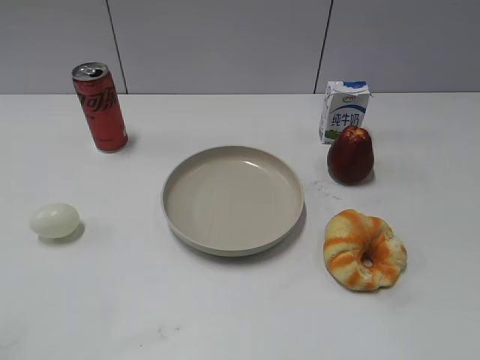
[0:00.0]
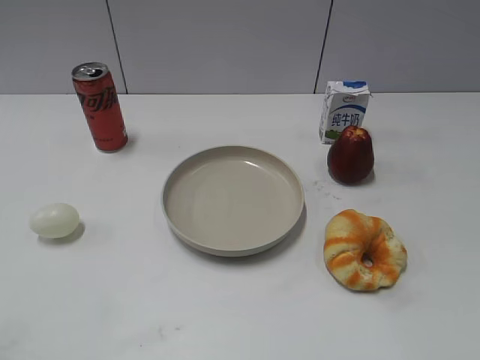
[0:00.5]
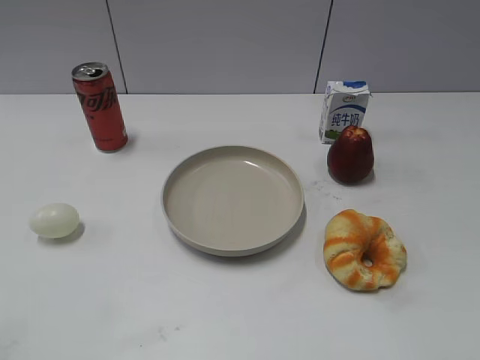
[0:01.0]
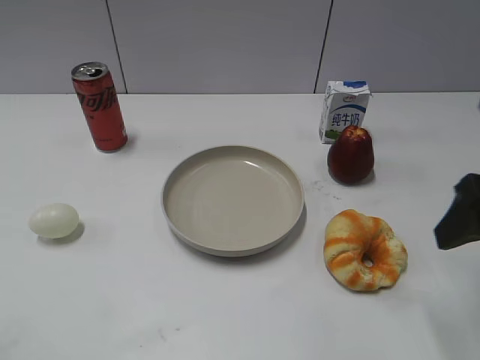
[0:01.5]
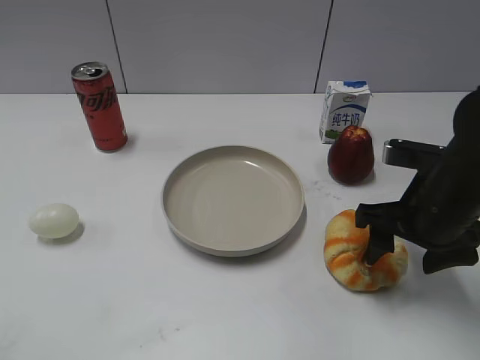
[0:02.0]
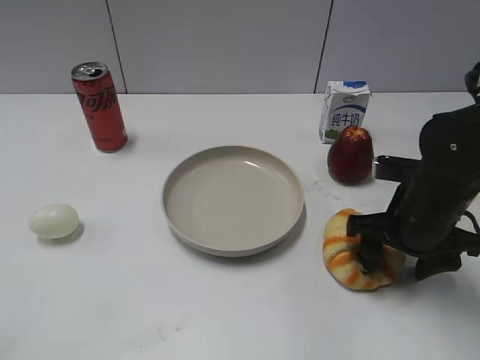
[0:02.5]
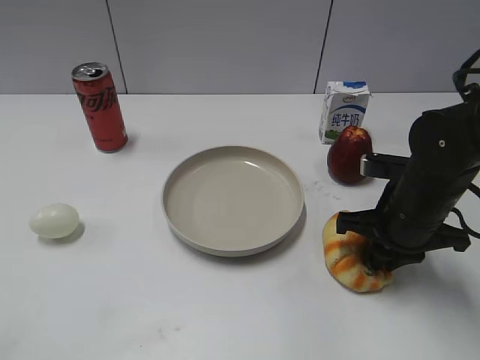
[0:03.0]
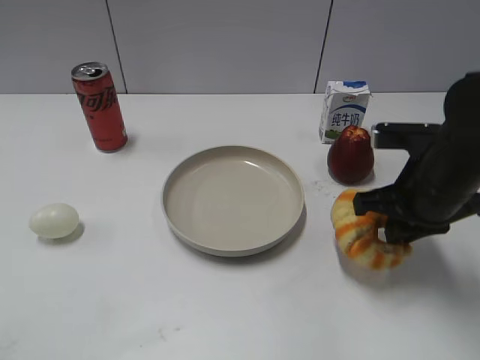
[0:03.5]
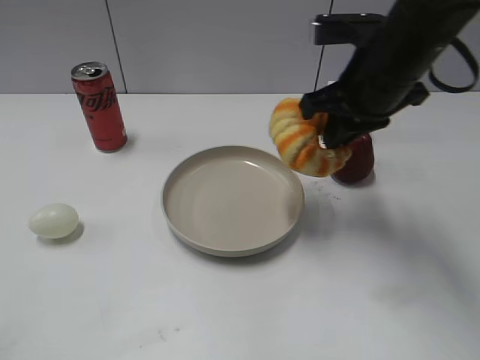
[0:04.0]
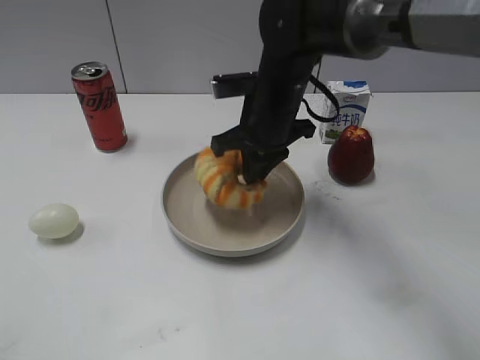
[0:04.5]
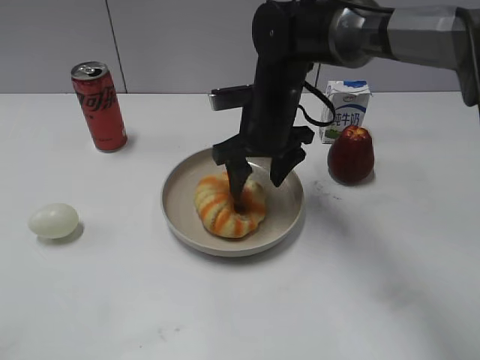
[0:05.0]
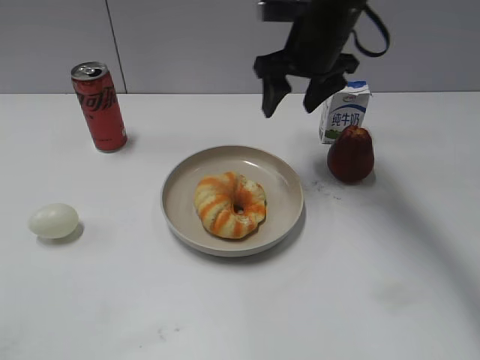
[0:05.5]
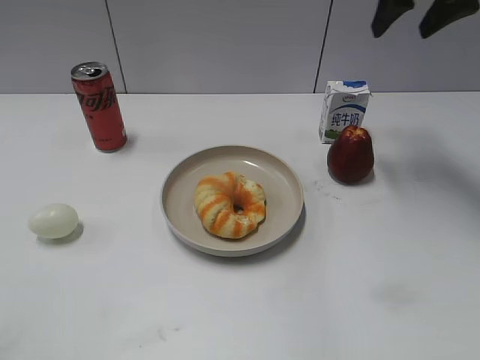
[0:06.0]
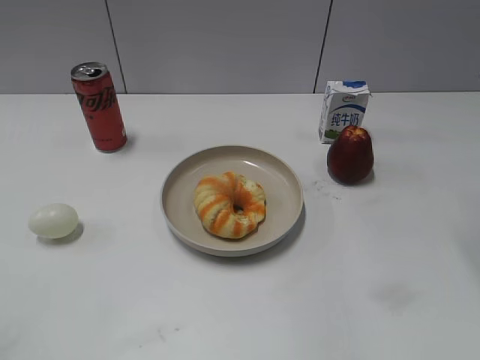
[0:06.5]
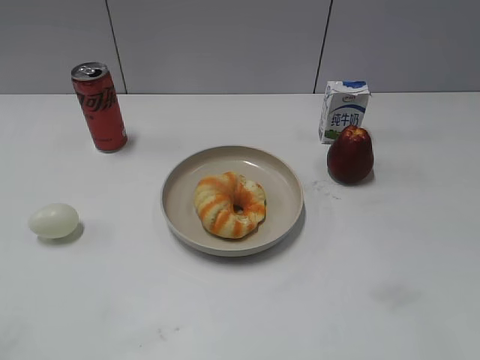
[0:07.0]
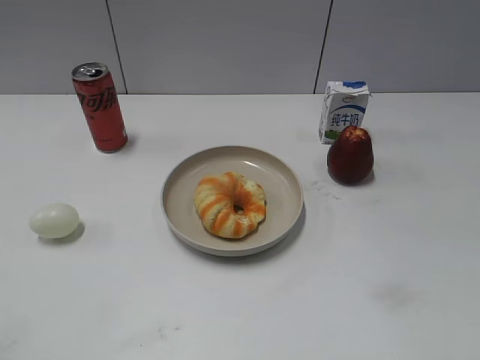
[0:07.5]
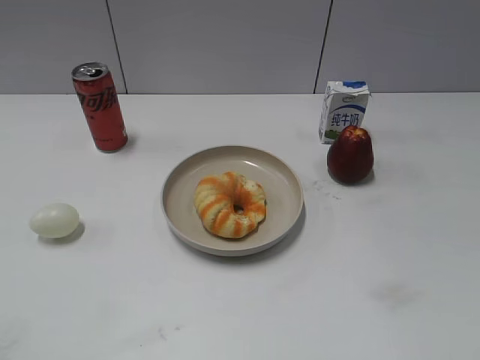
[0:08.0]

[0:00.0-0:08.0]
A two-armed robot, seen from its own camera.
Step, 0:00.0 to 0:03.0: Grasp the round bread with right gripper.
Step, 0:03.5 to 0:05.0: Place the round bread on the plate with right gripper.
0:02.0 to 0:04.0: The right gripper goes some 15 cm upward, forward and to the left, and closes up.
0:04.0 to 0:06.0: The right gripper shifts about 15 cm forward, to the right and upward, and opens.
0:06.0 to 0:08.0: The right gripper moves backward, approximately 40 cm.
